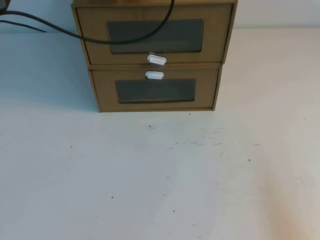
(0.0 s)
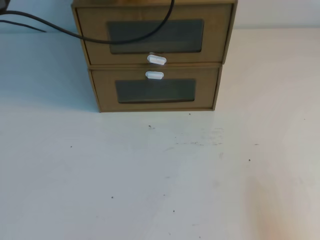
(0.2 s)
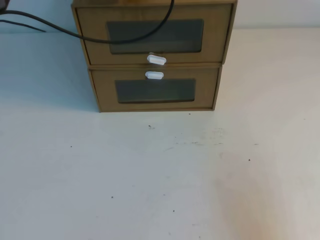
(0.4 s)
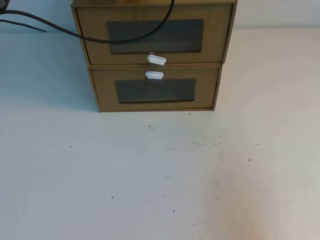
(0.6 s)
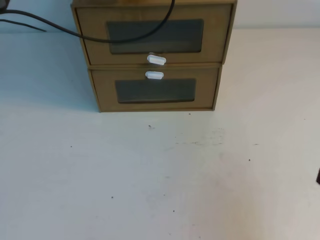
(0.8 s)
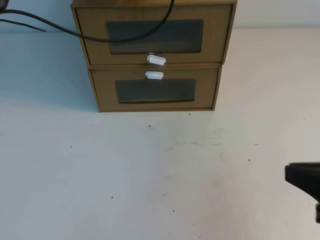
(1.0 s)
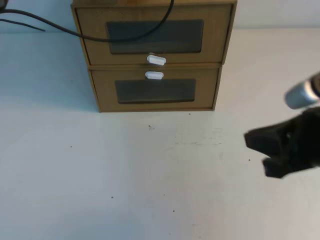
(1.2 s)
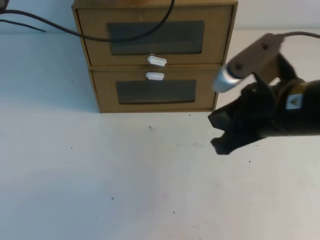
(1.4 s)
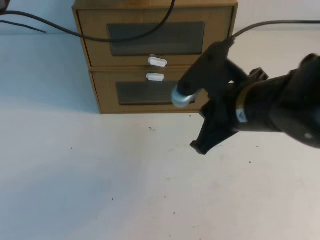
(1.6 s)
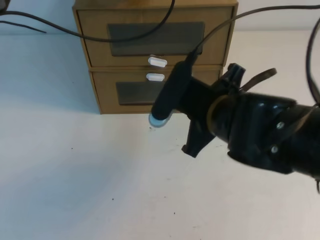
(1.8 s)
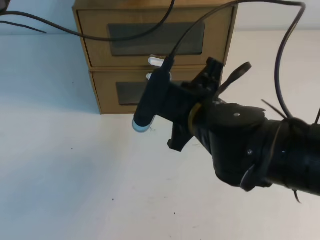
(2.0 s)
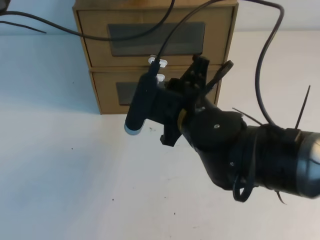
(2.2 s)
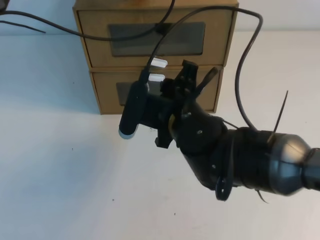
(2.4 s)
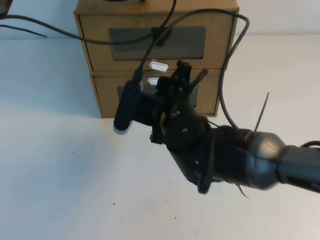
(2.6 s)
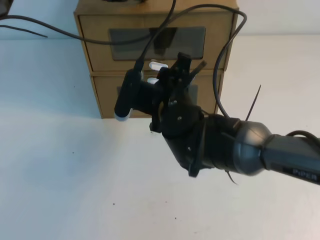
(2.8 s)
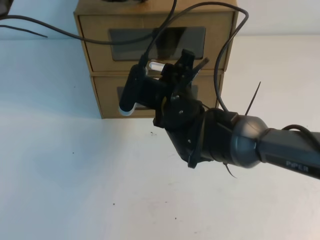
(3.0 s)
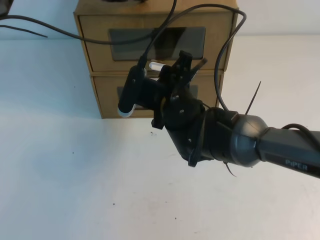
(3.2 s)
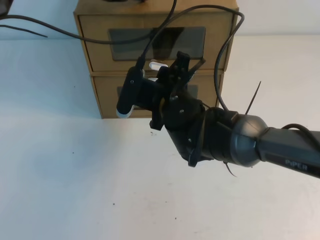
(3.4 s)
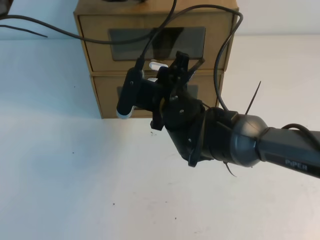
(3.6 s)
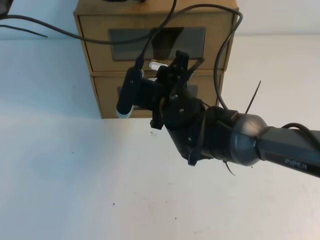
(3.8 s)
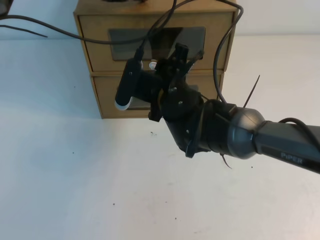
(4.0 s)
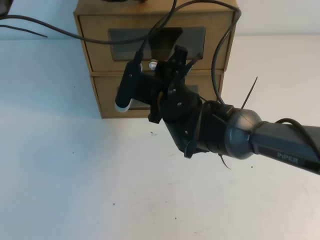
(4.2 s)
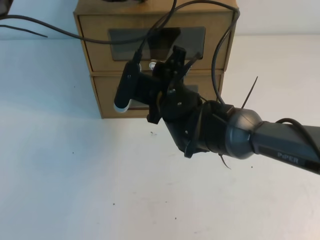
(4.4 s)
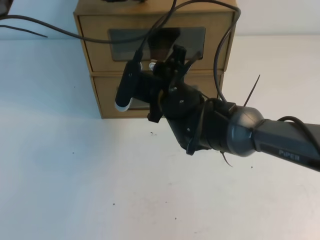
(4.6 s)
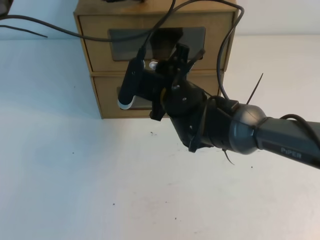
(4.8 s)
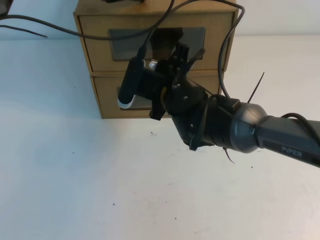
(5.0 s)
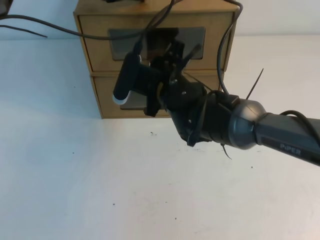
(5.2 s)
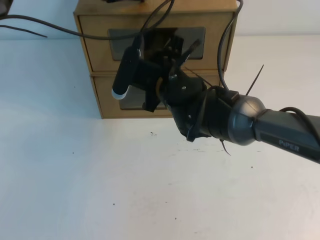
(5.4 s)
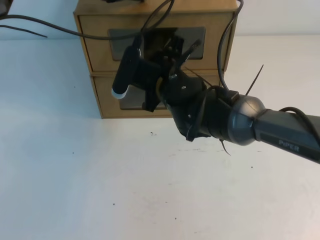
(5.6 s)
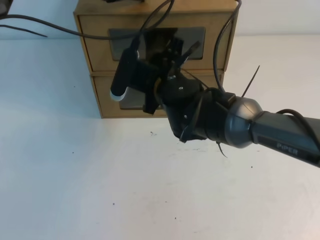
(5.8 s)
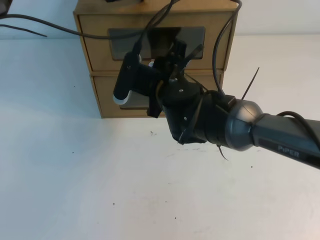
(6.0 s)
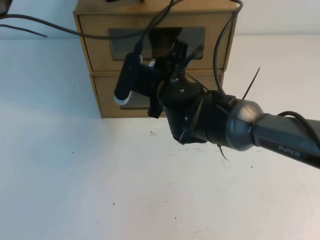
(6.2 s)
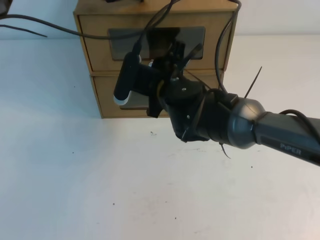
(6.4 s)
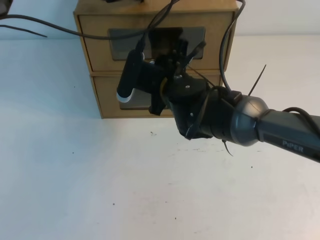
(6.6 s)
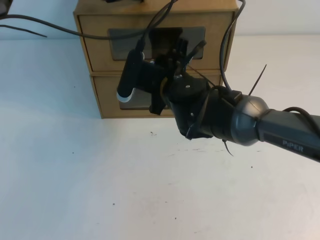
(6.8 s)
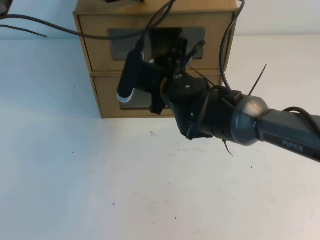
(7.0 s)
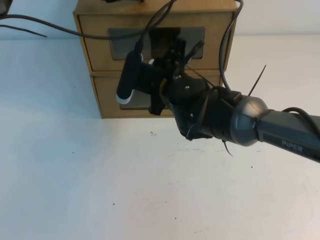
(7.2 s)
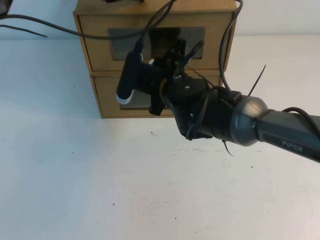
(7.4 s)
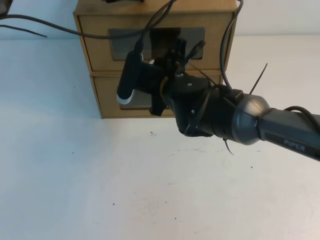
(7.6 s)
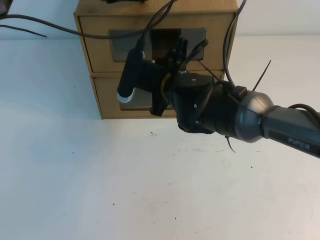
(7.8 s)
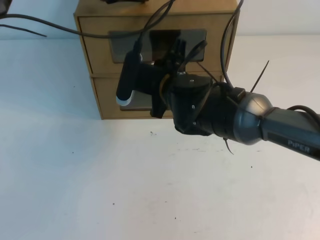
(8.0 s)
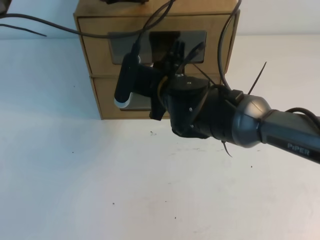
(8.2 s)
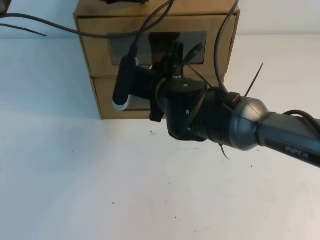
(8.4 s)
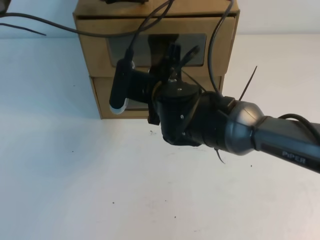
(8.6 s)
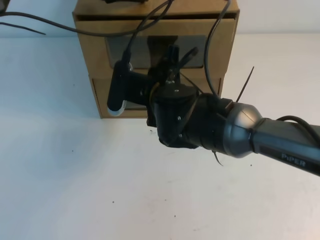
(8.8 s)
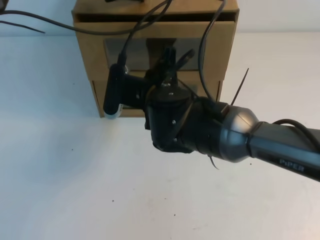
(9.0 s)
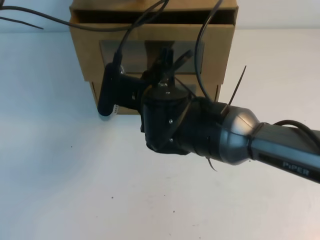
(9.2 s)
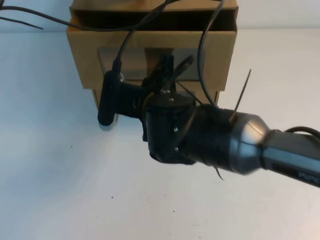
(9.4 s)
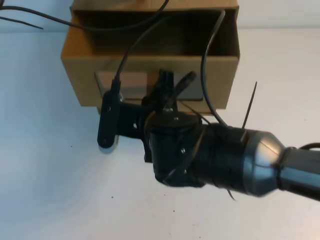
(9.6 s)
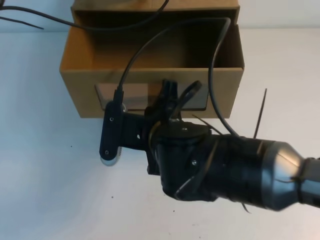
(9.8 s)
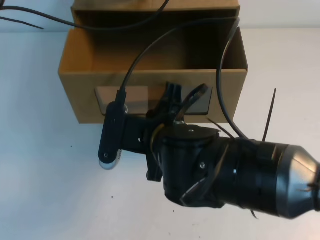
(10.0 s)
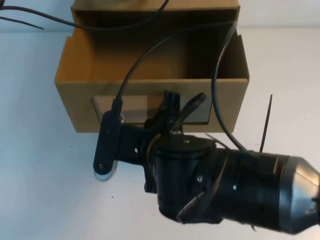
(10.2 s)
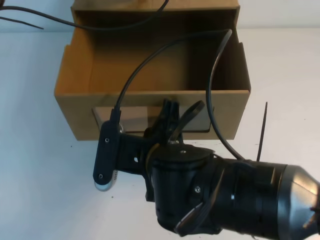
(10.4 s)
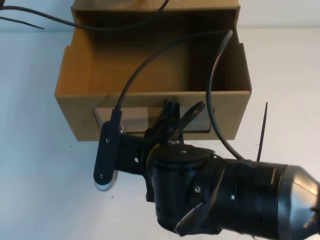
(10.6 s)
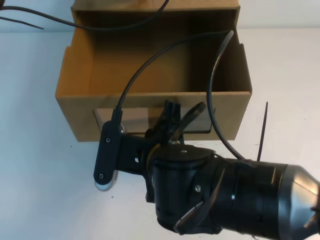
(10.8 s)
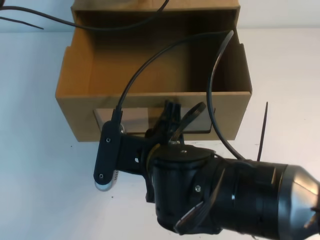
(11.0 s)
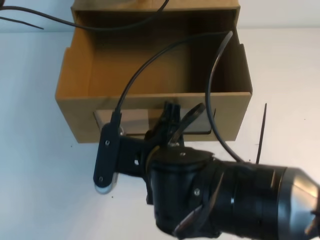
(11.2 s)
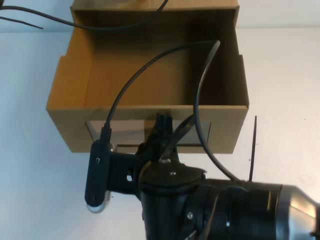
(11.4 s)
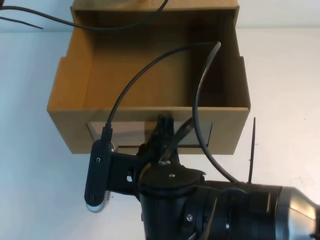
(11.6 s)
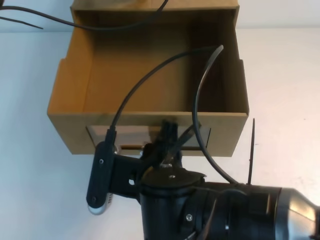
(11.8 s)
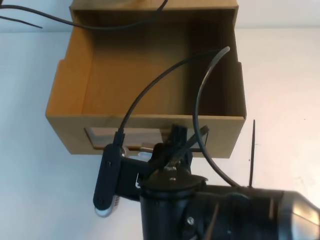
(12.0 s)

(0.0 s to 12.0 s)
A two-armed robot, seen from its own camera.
Task of the whole recording: open the shoebox on the table.
0.0 s - 1.6 s: The right gripper moves to the left, forward and upward, roughly 30 cm.
1.6 s - 3.0 s: The right gripper shifts roughly 15 cm to the left, forward and downward, and opens up.
3.0 s - 6.0 s: The grippers make only small movements.
6.0 s - 7.6 s: The right gripper closes up.
9.0 s - 10.4 s: The right gripper heads backward, covering roughly 10 cm.
10.4 s - 12.0 s: The right gripper opens.

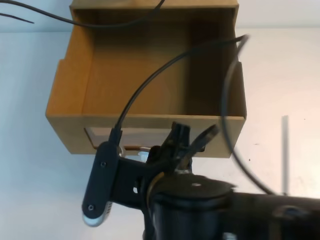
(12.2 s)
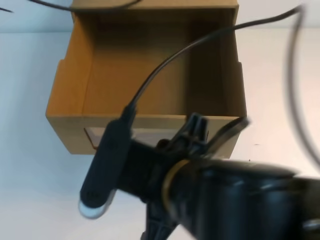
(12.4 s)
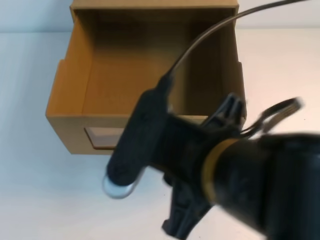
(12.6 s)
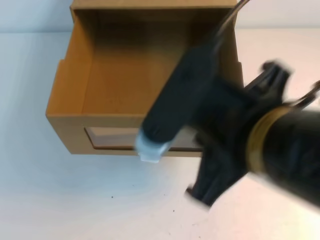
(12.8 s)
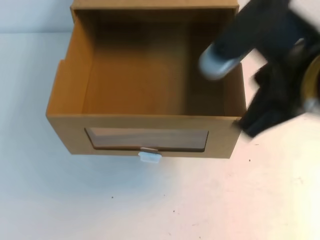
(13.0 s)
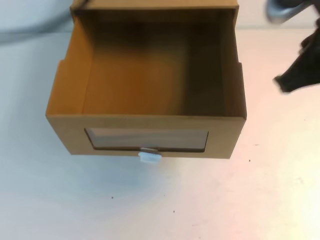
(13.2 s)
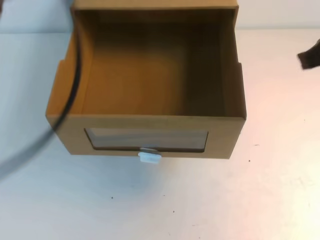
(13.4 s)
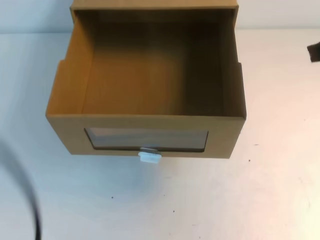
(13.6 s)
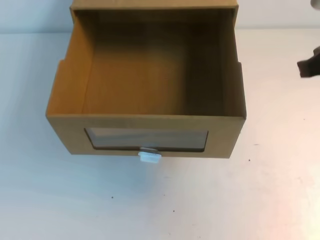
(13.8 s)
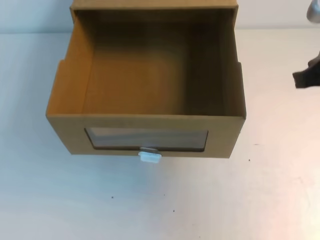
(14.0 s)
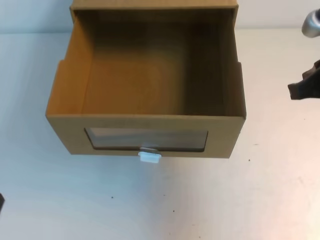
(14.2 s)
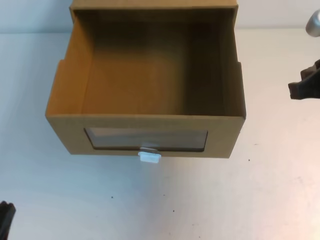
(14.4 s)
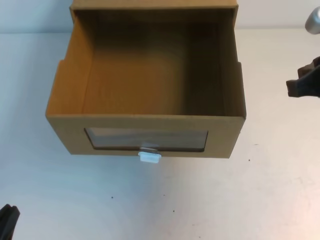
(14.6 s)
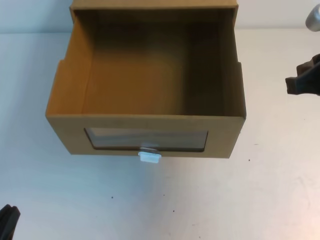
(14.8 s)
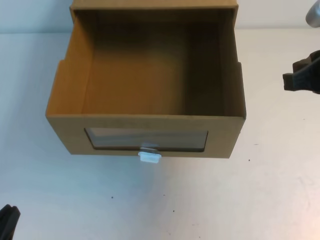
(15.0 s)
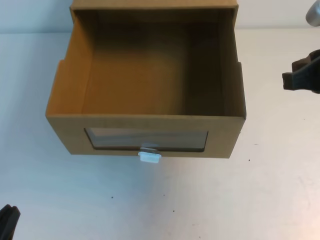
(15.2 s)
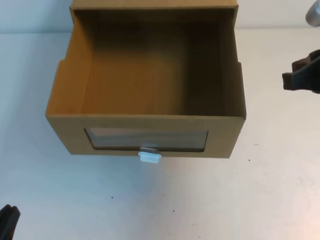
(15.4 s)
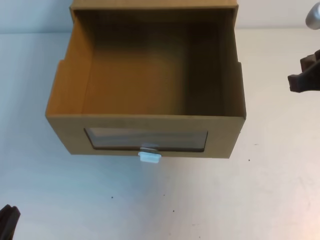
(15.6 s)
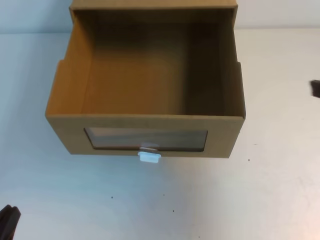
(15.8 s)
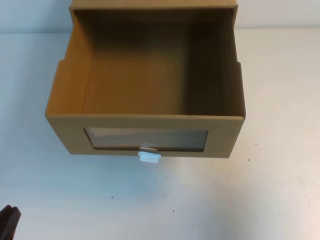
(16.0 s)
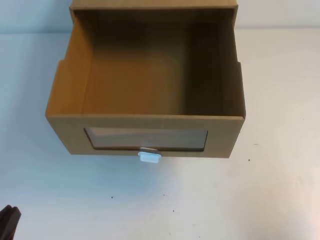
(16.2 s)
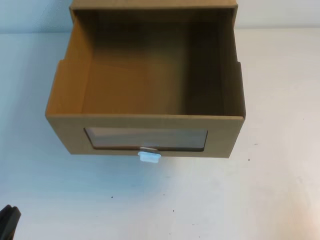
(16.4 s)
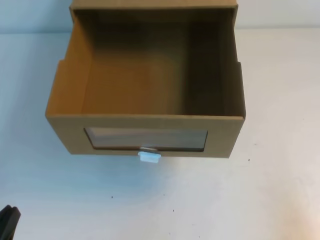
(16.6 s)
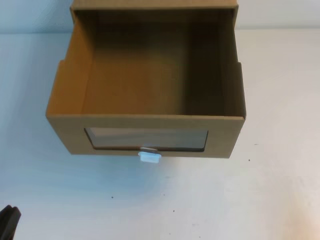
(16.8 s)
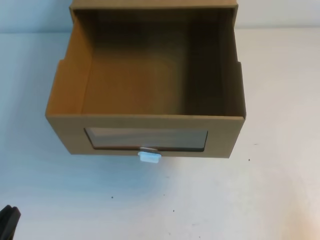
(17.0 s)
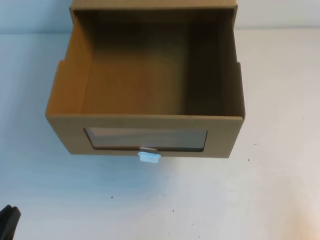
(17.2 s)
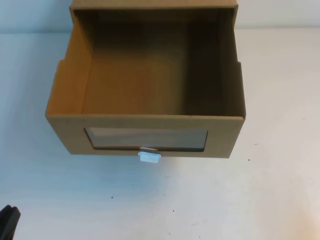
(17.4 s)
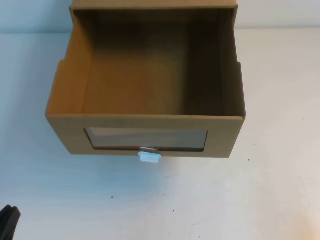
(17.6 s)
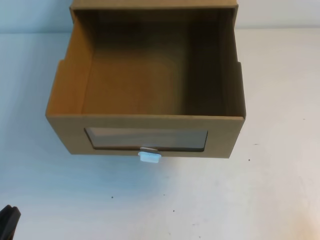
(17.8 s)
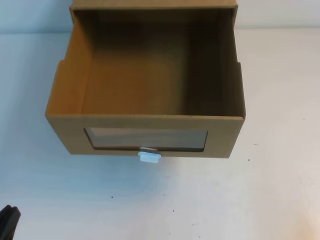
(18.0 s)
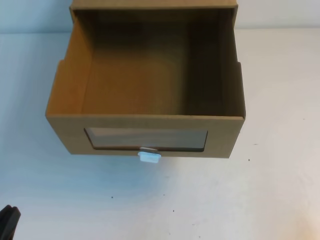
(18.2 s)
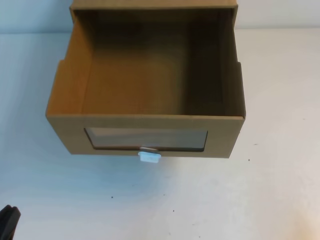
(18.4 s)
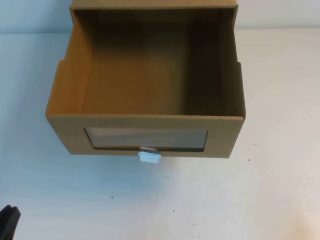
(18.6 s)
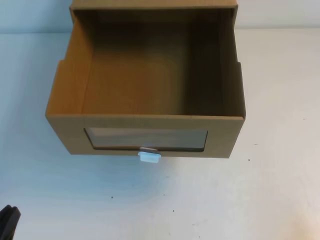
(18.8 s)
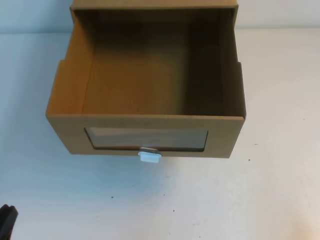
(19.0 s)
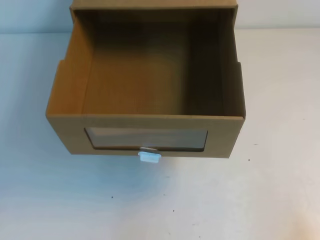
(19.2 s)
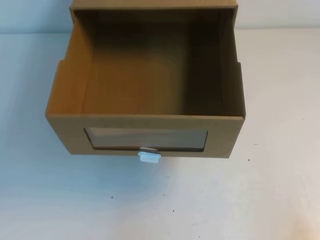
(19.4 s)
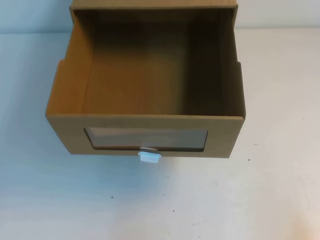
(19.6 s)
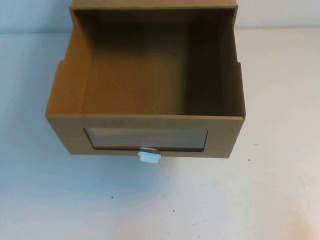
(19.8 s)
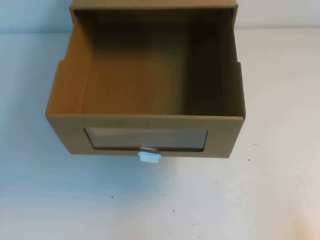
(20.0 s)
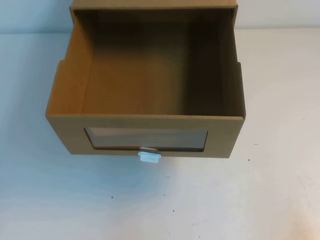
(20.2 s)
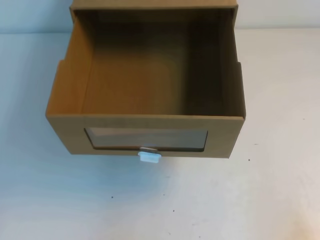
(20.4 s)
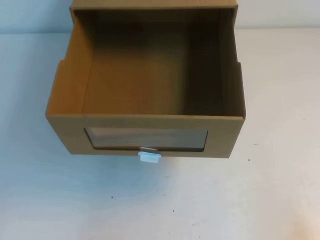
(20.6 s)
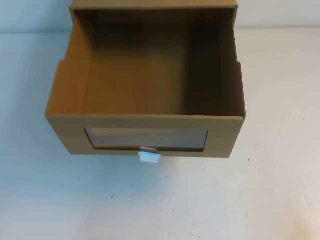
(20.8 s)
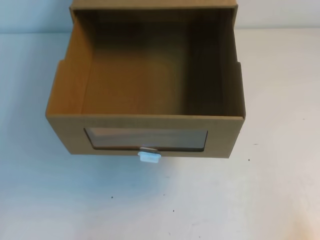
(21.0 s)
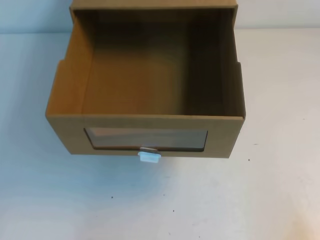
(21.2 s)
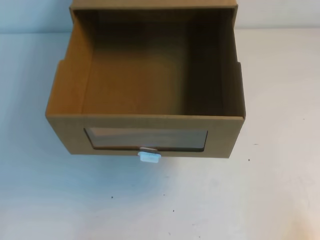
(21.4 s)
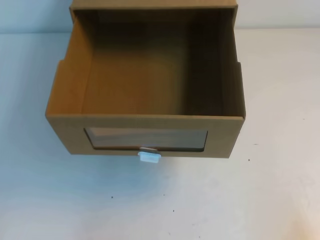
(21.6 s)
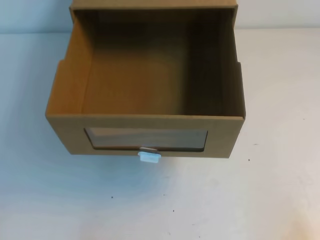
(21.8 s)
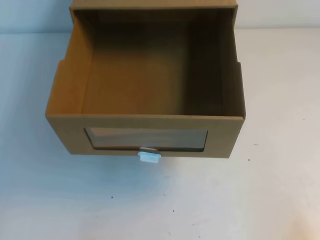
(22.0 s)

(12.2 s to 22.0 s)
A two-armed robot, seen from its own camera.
Task of the whole recording: open the shoebox on the table.
Step, 12.2 s - 22.0 s: Open the shoe box.
12.2 s - 13.6 s: The right gripper travels to the right, forward and upward by approximately 25 cm, and closes up. Meanwhile the left gripper heads backward, covering about 30 cm.
13.6 s - 15.0 s: The left gripper heads downward, covering roughly 25 cm.
15.0 s - 16.4 s: The right gripper travels backward, downward and to the right by some 25 cm.
20.6 s - 22.0 s: Neither gripper changes place.
